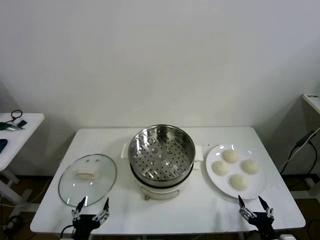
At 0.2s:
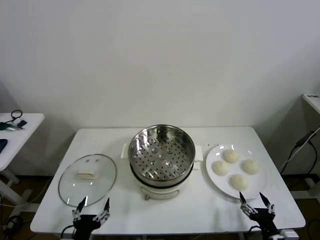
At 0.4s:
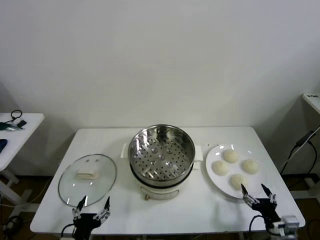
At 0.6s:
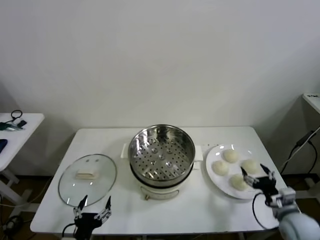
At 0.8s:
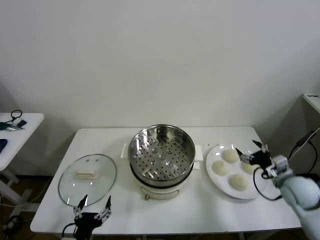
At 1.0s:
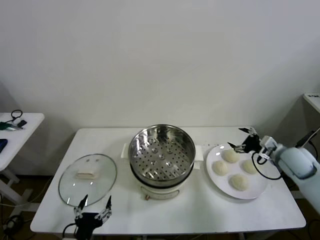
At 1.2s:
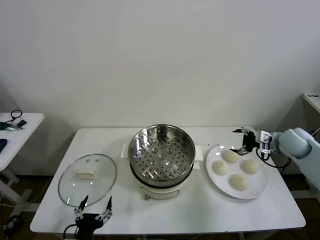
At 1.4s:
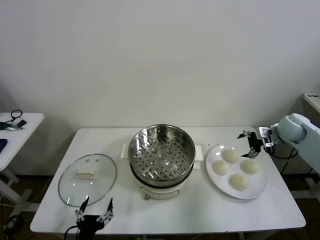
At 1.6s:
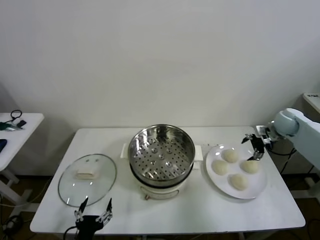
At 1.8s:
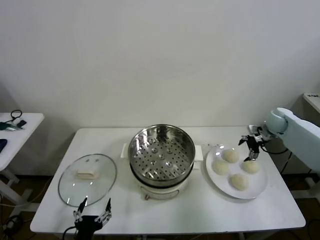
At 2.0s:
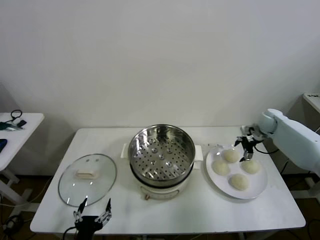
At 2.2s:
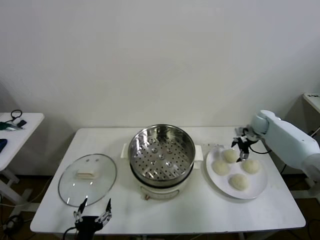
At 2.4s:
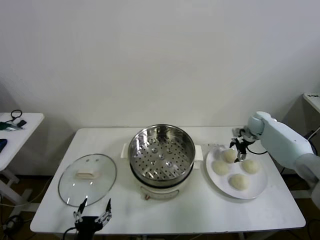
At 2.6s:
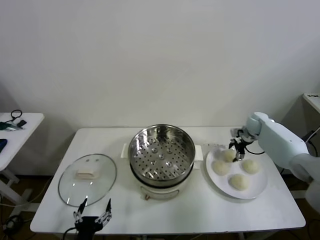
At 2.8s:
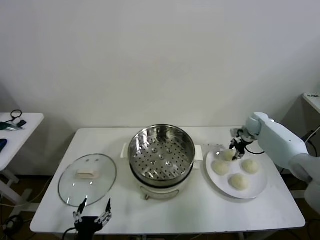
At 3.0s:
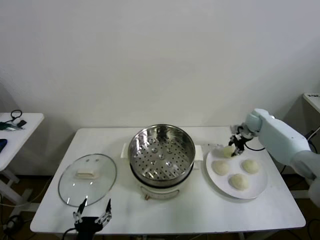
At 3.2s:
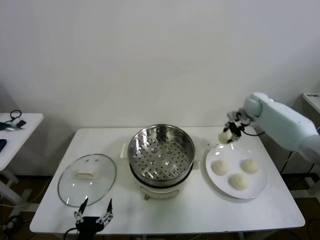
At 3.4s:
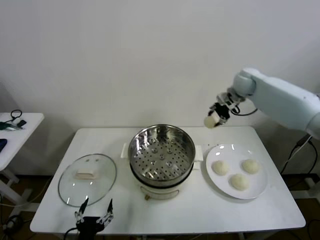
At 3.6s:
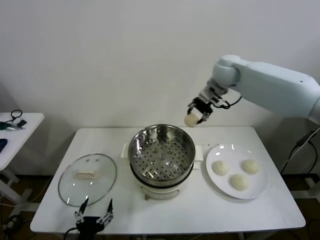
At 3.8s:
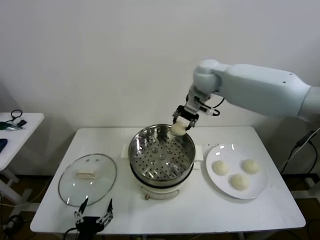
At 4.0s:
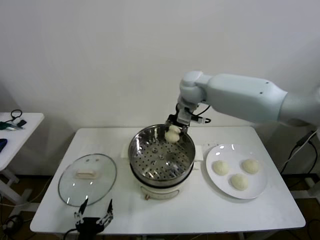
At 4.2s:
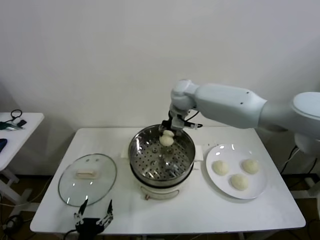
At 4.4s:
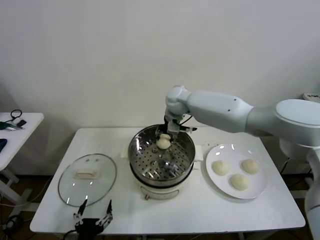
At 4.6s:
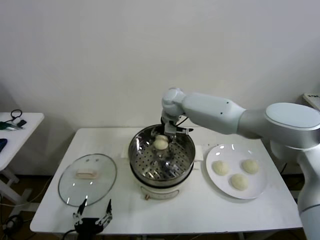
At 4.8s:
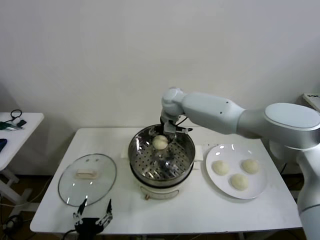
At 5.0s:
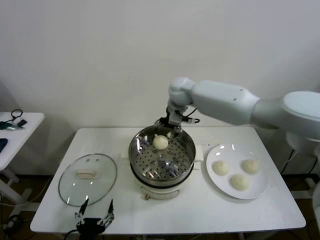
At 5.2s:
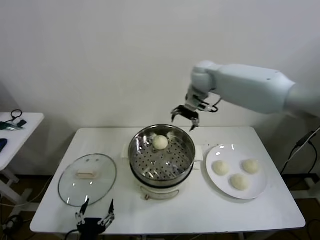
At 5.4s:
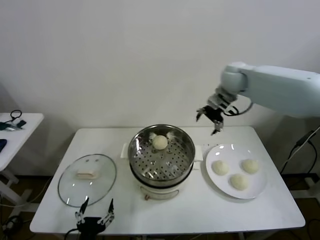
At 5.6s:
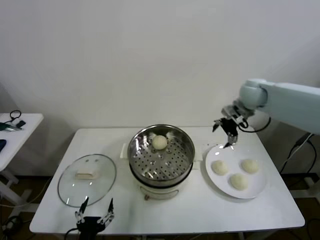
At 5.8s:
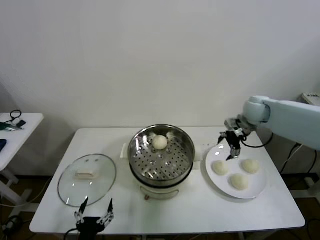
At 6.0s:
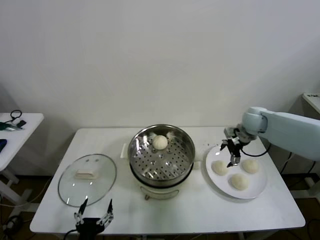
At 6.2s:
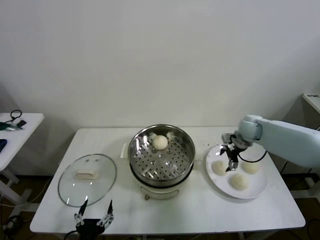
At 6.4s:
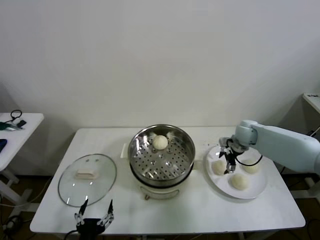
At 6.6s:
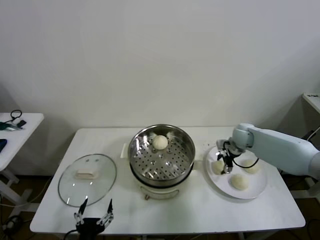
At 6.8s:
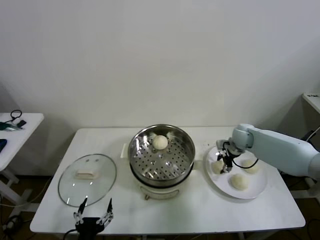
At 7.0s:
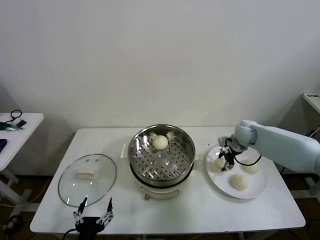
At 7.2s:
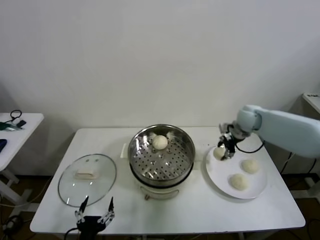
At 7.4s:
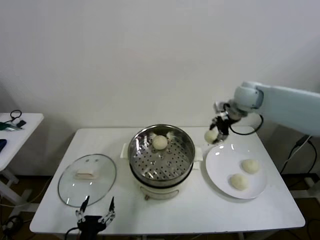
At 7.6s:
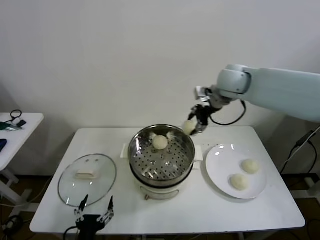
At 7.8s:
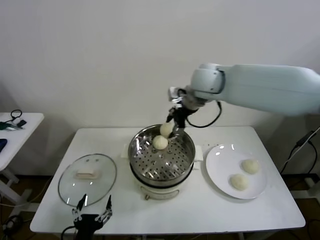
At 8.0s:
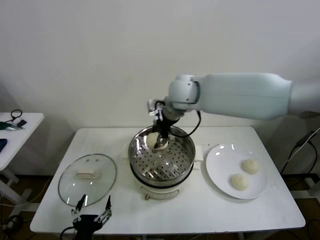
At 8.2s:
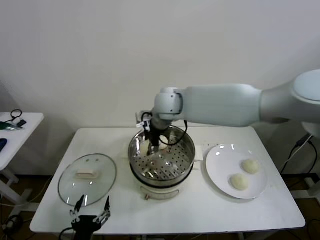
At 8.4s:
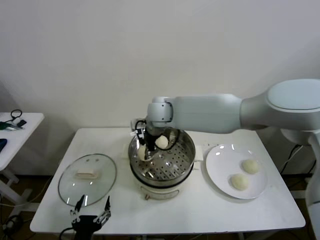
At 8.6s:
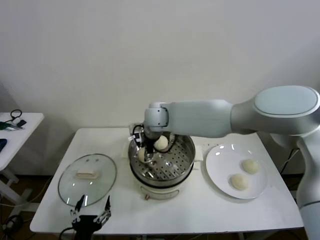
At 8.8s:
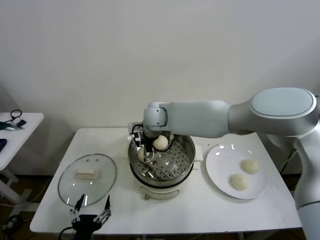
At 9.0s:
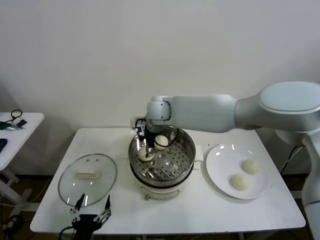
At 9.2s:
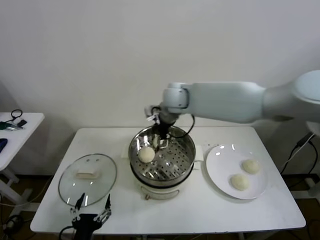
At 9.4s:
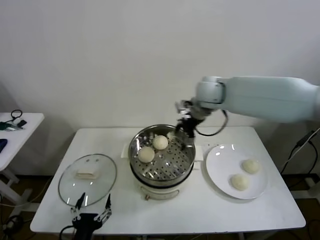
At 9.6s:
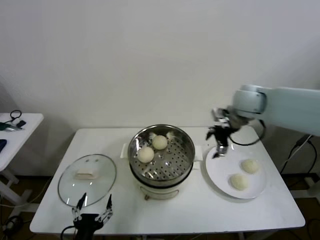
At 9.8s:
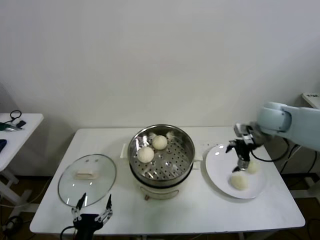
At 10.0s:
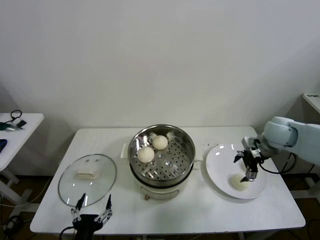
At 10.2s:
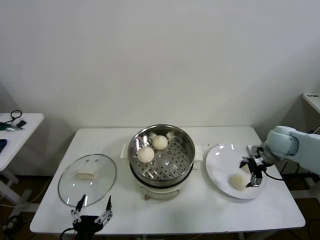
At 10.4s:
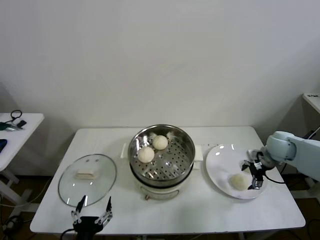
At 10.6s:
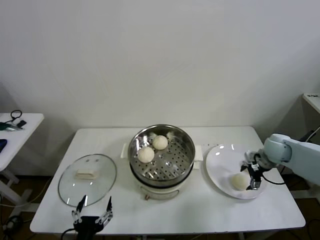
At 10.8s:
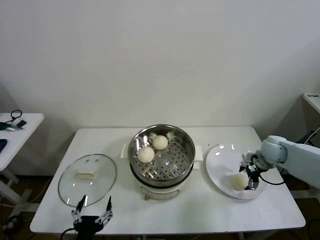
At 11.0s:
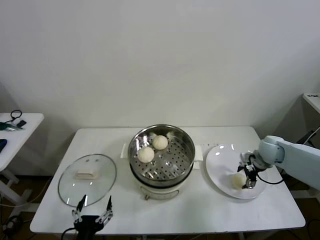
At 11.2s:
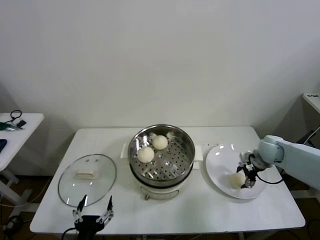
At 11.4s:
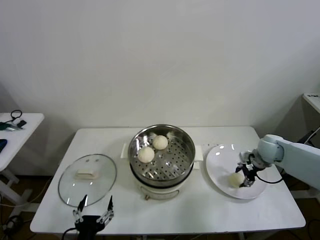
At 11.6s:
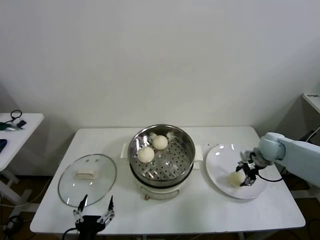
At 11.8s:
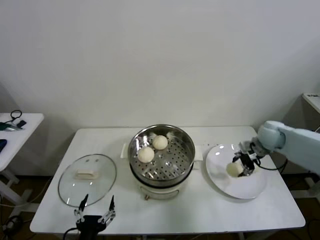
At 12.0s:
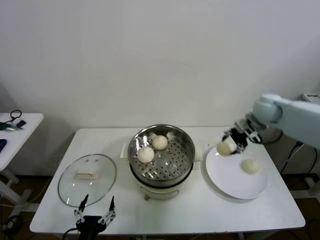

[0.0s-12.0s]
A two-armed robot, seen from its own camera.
Task of the whole recording: take steamed baozi put them in steamer then cover it.
Step, 0.0s to 3.0s: Grasp the baozi in the plate with right gripper.
Step, 3.2s to 4.8s: Place the baozi on the steamer with right gripper.
Step, 5.0s to 6.8s: Grasp the baozi in the plate with right gripper.
Step, 7.0s to 8.8s: Place the baozi on the steamer with right gripper.
Step, 9.2s to 11.4s: Grasp the baozi in the plate with right gripper.
1.6s to 3.0s: The right gripper is displaced forward and to the left by some 10 cm, and closes.
3.0s to 4.4s: The right gripper travels to the left by some 35 cm.
4.4s to 6.0s: The right gripper shifts some 30 cm to the right, and opens up.
6.0s to 7.6s: The right gripper travels upward and to the left by about 25 cm, and closes up.
7.6s to 9.0s: The right gripper goes some 20 cm to the left and downward, and opens up.
9.0s to 10.4s: The right gripper shifts about 40 cm to the right.
10.4s to 12.0s: The right gripper is displaced upward, forward and to the left by roughly 15 cm, and closes up.

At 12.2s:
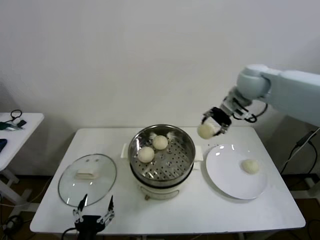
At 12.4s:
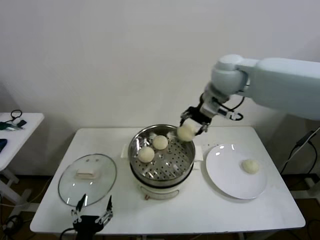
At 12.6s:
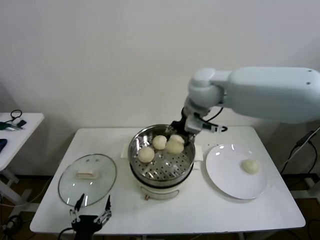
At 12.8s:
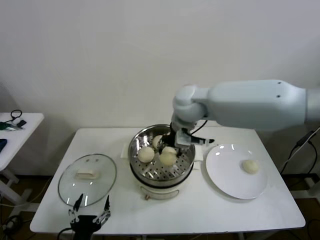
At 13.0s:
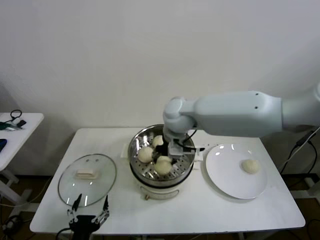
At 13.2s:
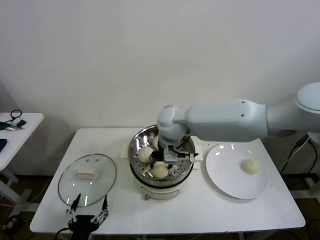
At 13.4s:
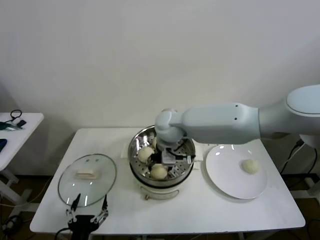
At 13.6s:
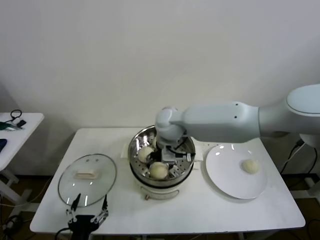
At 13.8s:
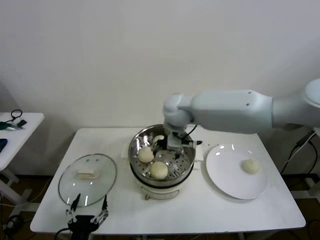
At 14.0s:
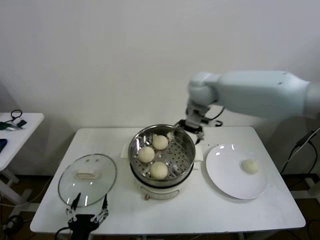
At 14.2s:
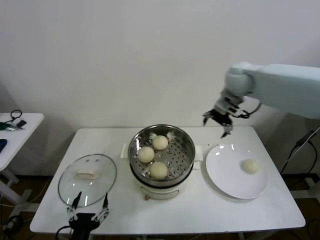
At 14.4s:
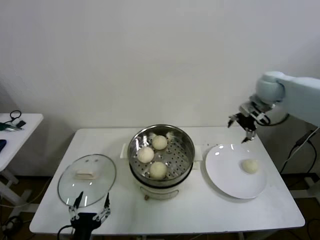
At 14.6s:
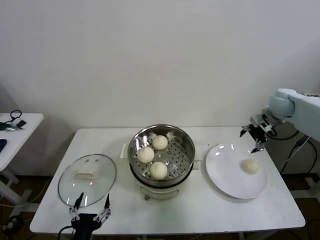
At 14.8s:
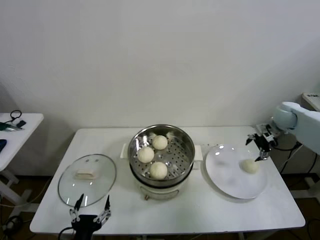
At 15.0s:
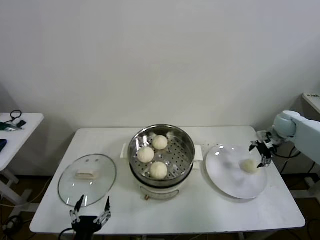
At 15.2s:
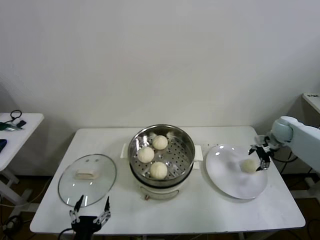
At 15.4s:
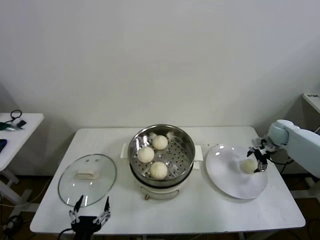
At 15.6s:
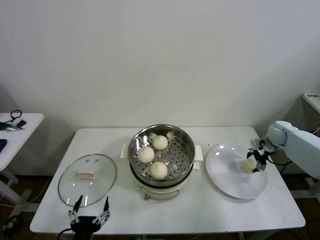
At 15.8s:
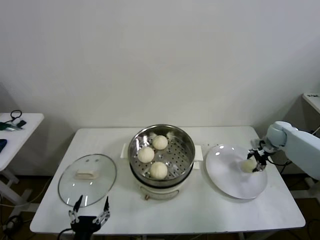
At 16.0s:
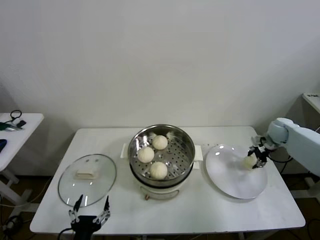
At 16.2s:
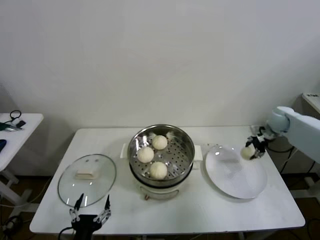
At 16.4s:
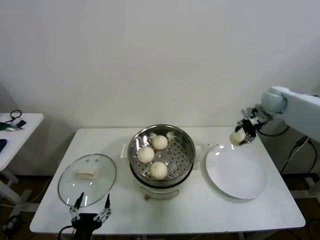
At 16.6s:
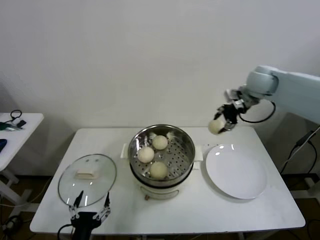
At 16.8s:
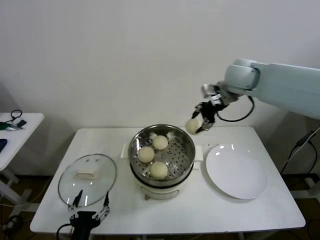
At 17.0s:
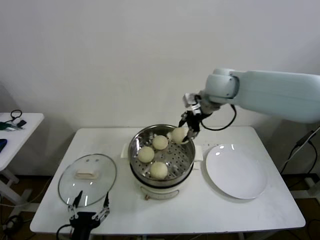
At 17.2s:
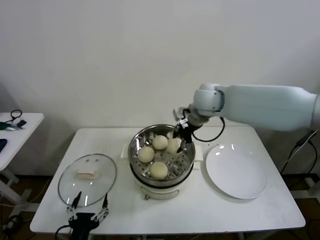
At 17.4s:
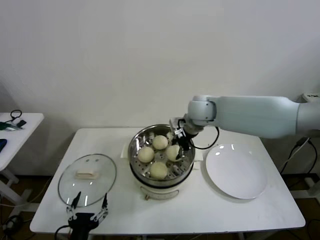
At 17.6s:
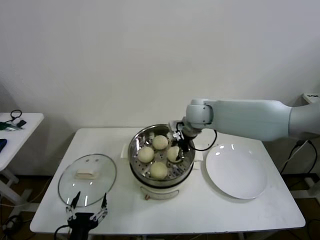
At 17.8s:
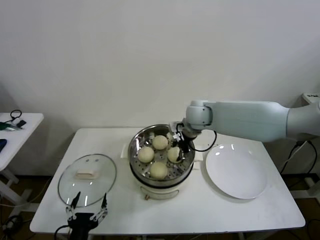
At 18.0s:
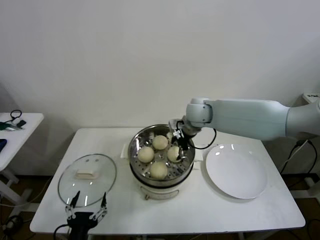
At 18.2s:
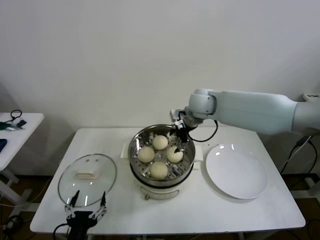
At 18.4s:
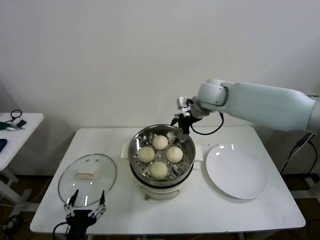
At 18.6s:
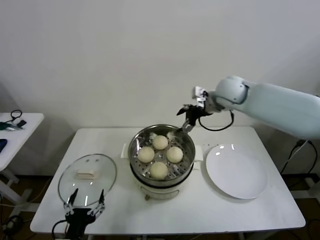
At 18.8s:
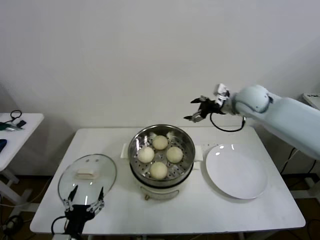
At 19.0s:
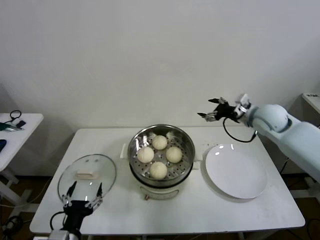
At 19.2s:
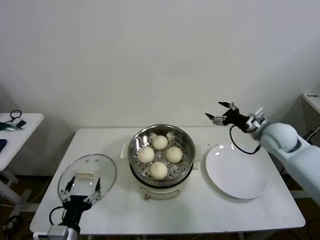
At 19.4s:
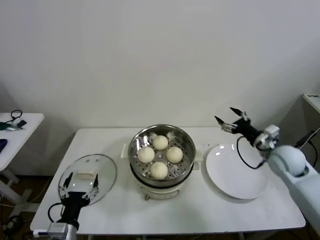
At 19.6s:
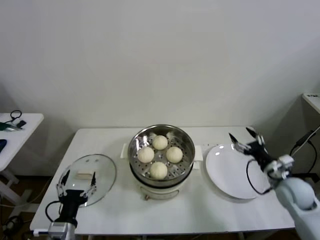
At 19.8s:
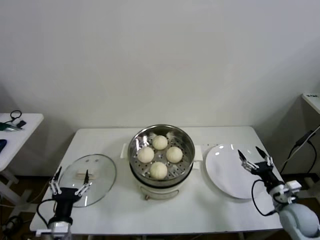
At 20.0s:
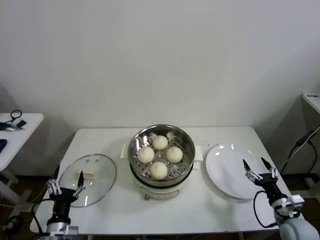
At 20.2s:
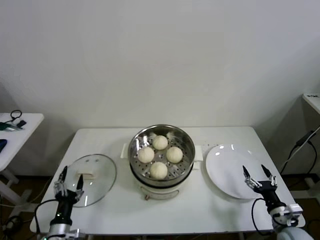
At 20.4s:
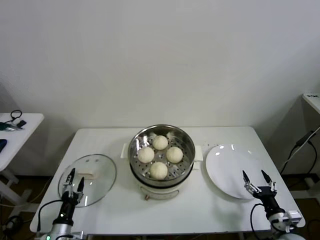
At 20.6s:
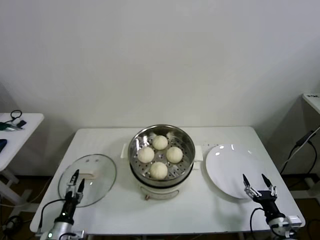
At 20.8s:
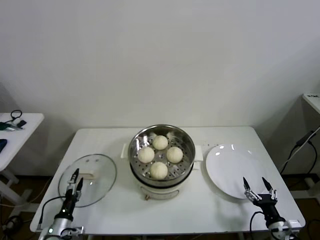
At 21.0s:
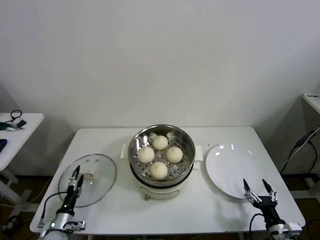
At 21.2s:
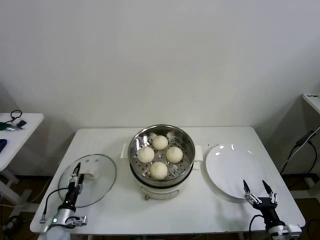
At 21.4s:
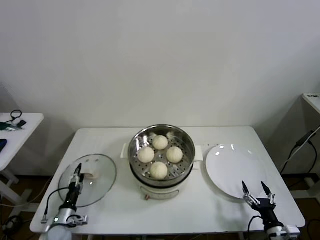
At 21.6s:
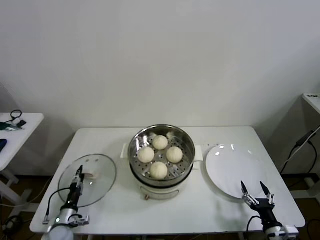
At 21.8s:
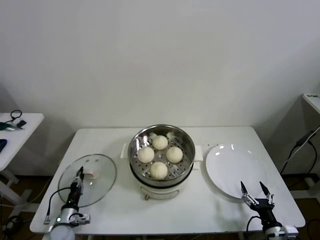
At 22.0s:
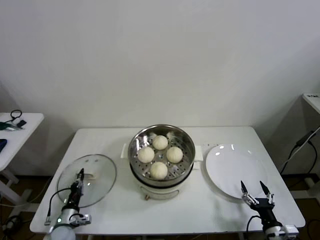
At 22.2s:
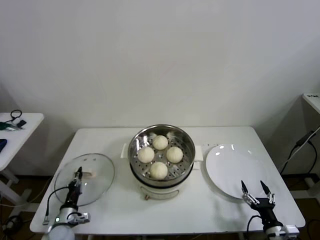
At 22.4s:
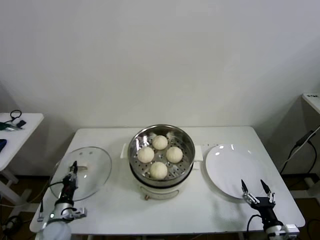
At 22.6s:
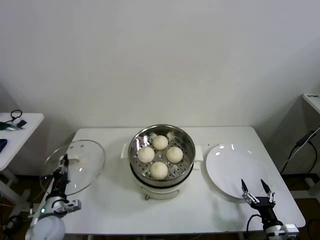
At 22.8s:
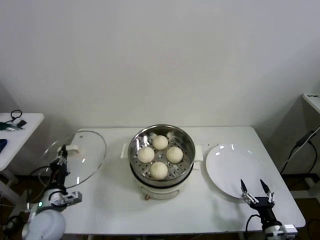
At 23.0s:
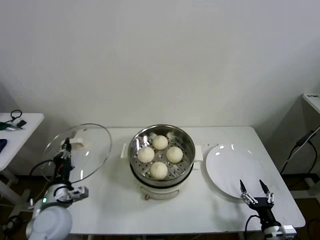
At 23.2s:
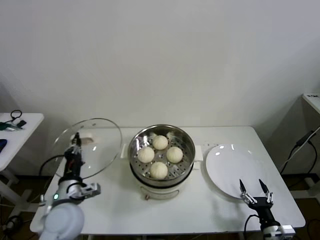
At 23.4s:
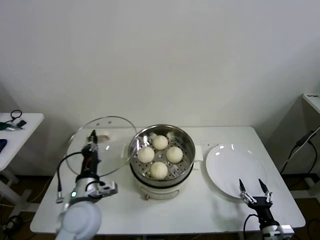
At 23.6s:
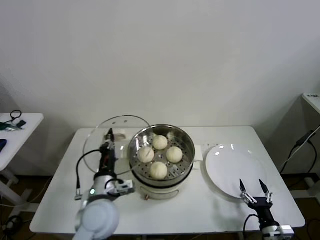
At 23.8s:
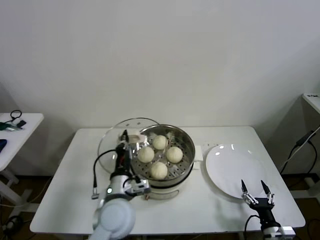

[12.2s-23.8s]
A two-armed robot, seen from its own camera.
Task of the whole recording: take steamed baozi put them in steamer then cover it.
Step, 12.2s to 13.6s: Place the baozi on the steamer with right gripper.
Step, 13.8s to 15.8s: Grasp the baozi in the plate with right gripper.
Step, 16.0s to 18.0s: Place the baozi on the steamer with right gripper.
Step, 18.2s to 22.0s: Grasp the pot lid with left gripper.
12.2s to 13.6s: The right gripper heads to the left and downward, covering about 25 cm, and opens.
13.6s to 15.0s: The right gripper is displaced to the right by some 40 cm.
15.0s to 16.6s: The right gripper moves upward and to the left, roughly 25 cm, and closes its fingers.
16.6s to 18.0s: The right gripper shifts roughly 20 cm to the left and downward, and opens its fingers.
18.0s to 19.4s: The left gripper is displaced forward by approximately 5 cm. The right gripper heads to the right and backward, covering roughly 30 cm.
19.4s to 21.0s: The right gripper shifts approximately 30 cm backward and downward. The left gripper heads downward, to the left and forward, covering some 20 cm.
21.0s to 22.4s: The left gripper closes up.
22.4s to 23.8s: The left gripper moves to the right and upward, some 30 cm.
